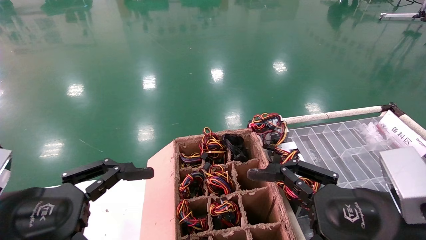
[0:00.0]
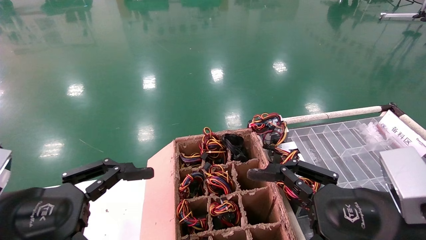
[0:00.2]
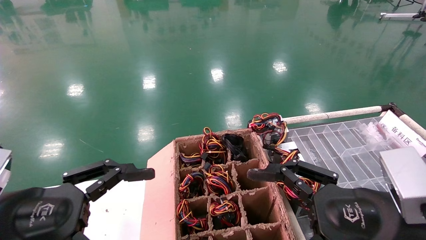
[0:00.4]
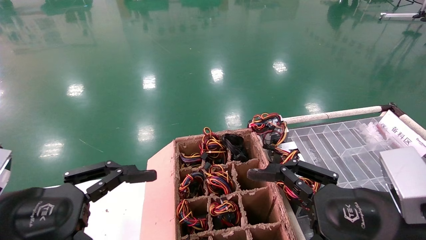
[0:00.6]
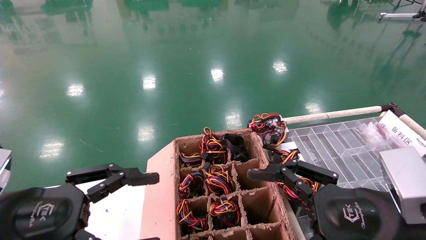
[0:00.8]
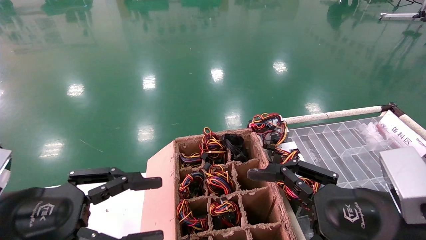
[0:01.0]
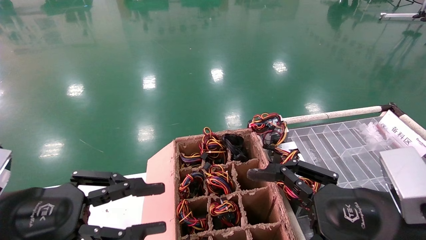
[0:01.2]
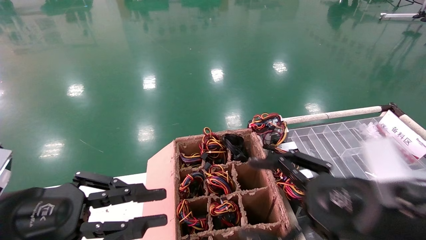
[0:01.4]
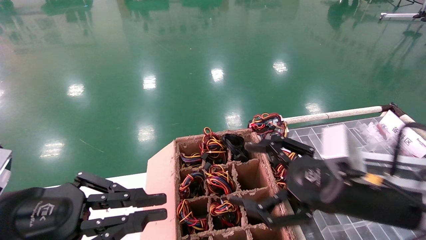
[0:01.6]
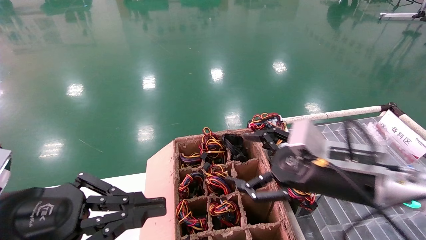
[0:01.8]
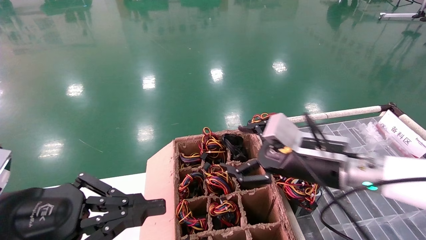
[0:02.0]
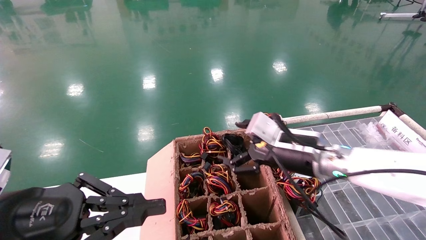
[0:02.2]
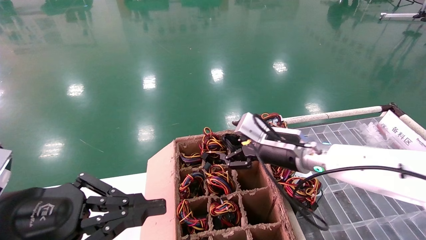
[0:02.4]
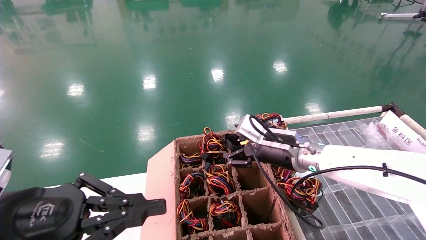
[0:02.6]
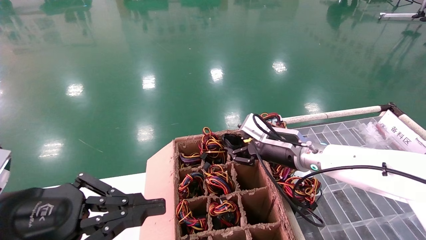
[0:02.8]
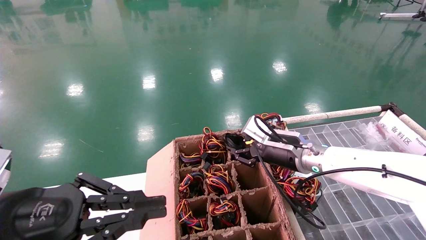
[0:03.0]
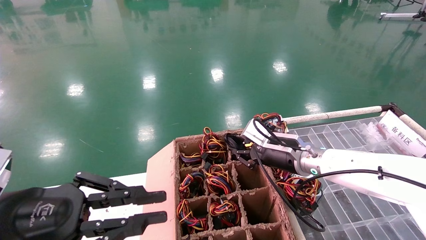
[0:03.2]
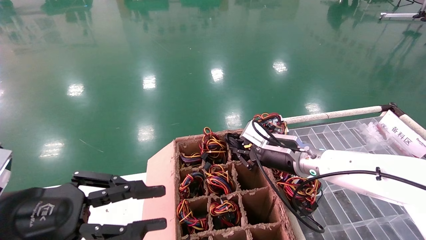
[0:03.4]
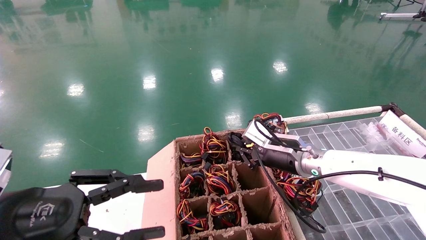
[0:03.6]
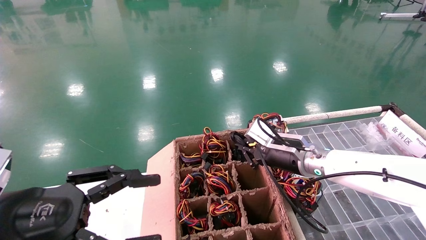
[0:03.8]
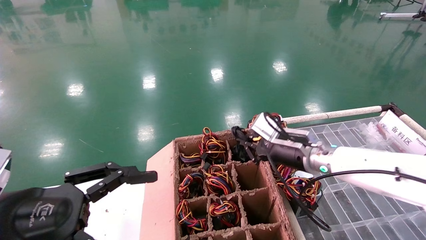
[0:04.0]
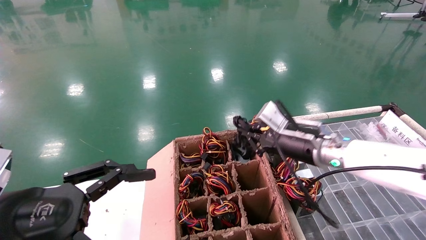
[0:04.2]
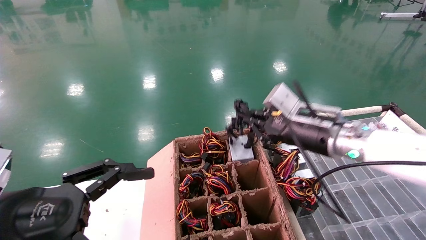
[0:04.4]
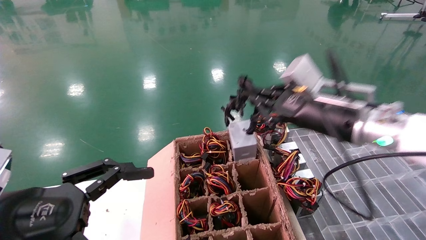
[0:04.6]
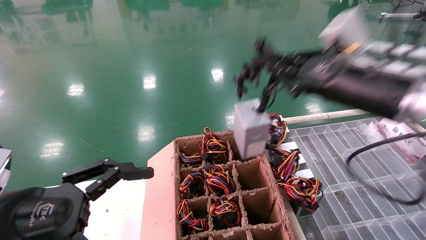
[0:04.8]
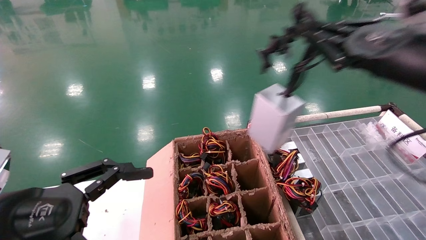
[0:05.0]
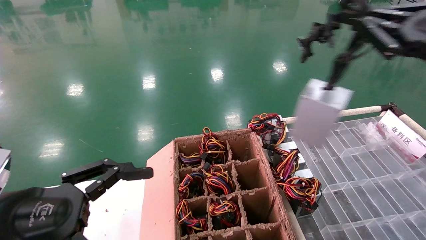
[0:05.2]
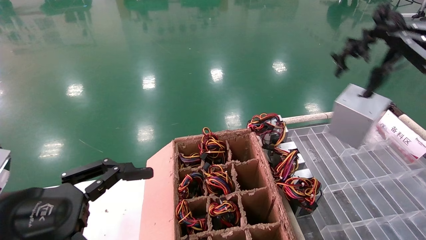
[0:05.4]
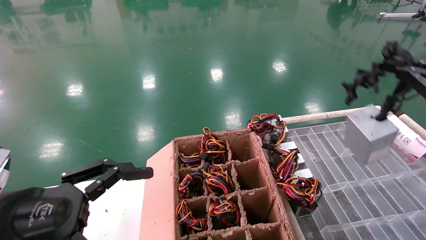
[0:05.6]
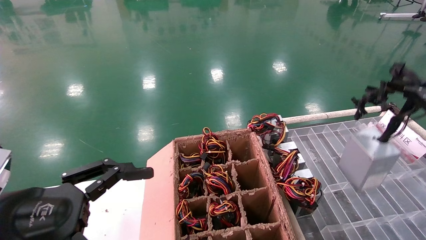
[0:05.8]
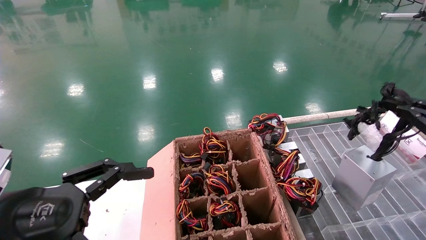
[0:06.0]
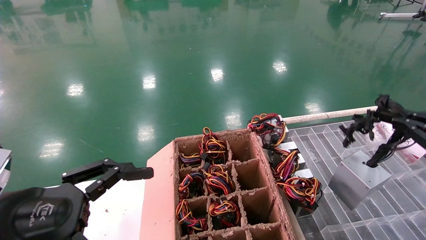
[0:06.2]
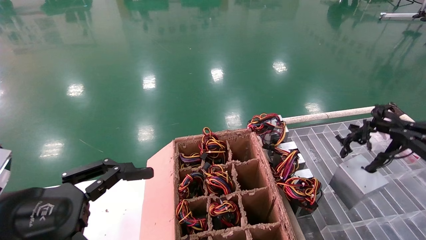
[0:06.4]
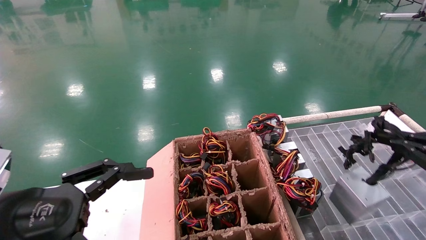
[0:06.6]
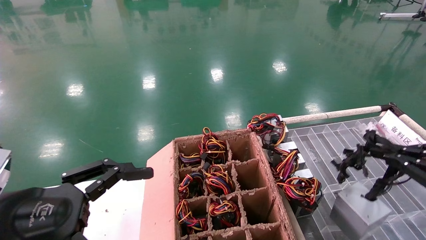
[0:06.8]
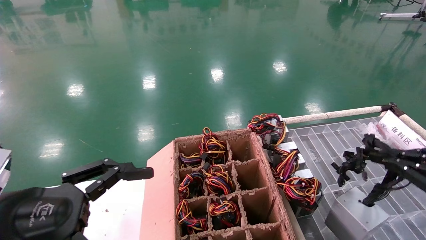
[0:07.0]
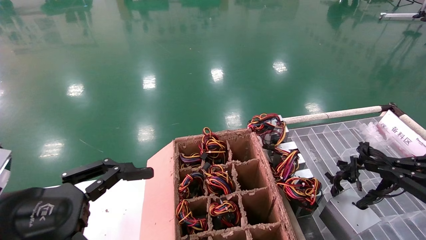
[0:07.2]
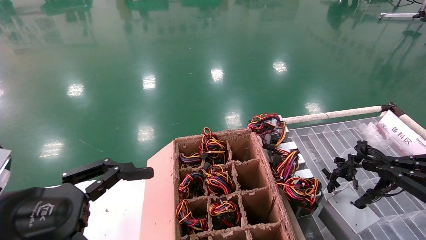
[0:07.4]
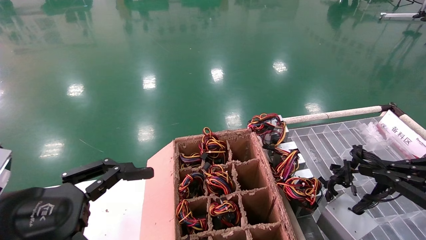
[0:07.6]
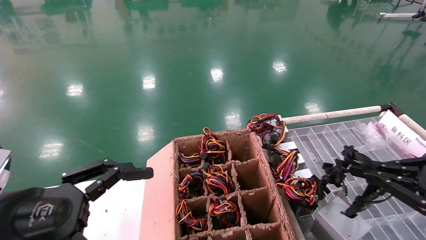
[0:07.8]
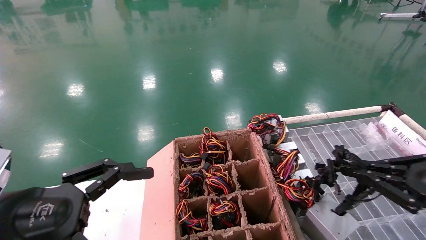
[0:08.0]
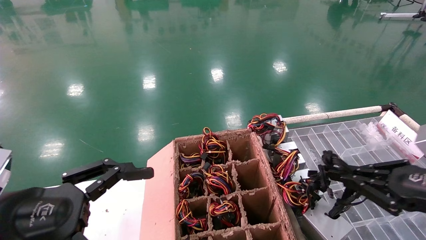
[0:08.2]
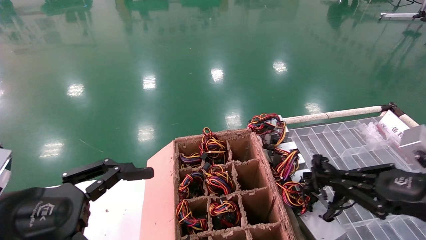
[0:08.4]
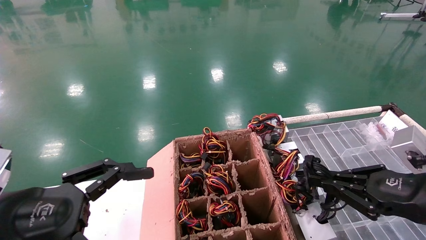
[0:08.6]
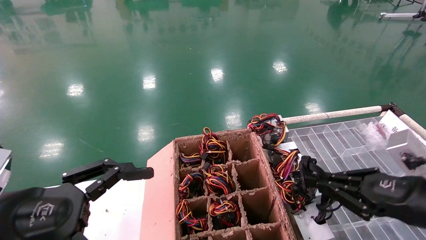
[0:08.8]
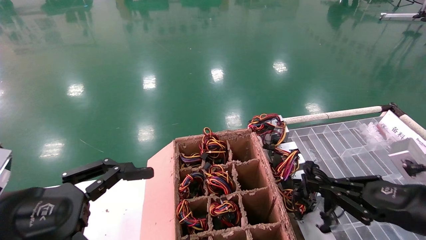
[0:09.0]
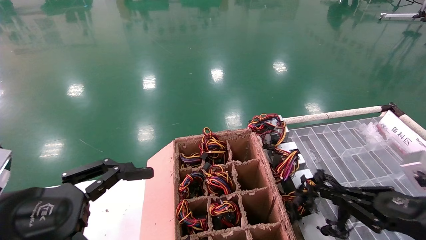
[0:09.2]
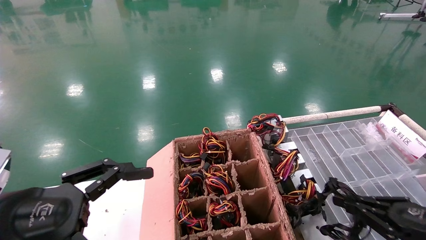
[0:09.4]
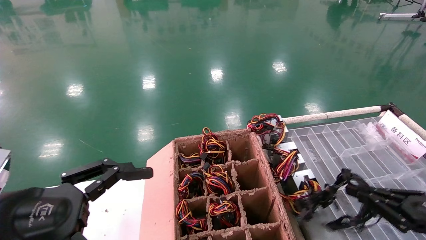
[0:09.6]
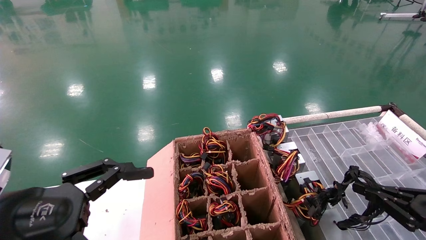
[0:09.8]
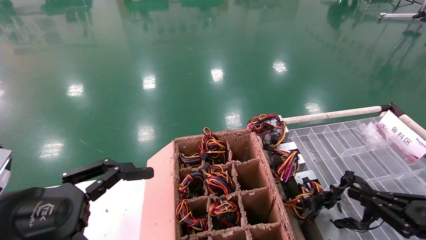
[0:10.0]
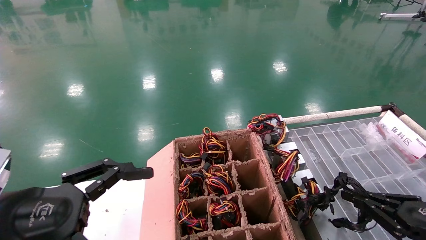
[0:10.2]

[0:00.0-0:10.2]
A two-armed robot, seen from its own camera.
Step, 0:02.2 to 0:04.0: Grab and lift the power supply from the large box.
0:00.0 to 0:01.4: The left gripper closes up.
0:01.4 to 0:03.0: The right gripper is displaced forward by about 20 cm, and closes.
0:03.0 to 0:04.4: The right gripper goes approximately 10 cm upward and backward, and closes up. Meanwhile the left gripper opens up.
0:04.4 to 0:05.8: The right gripper travels to the right and backward by some 25 cm.
0:05.8 to 0:07.2: The right gripper heads downward, covering about 5 cm.
0:07.2 to 0:08.8: The right gripper moves to the left, some 5 cm.
0:08.8 to 0:10.2: The right gripper is displaced downward and to the right by some 10 cm.

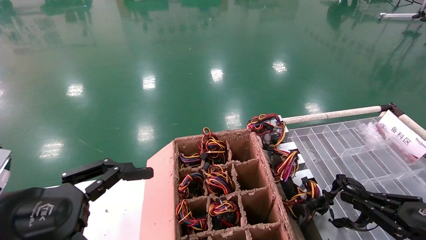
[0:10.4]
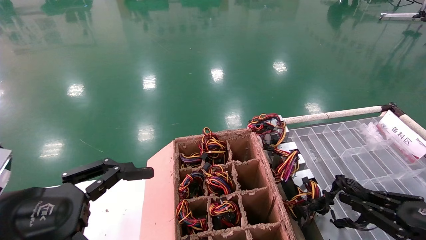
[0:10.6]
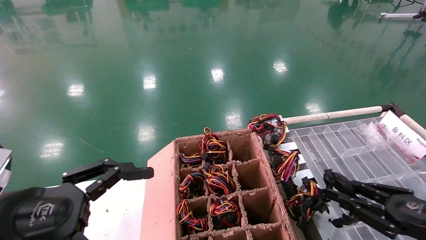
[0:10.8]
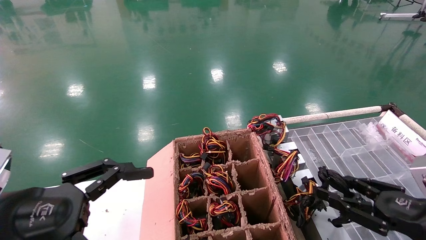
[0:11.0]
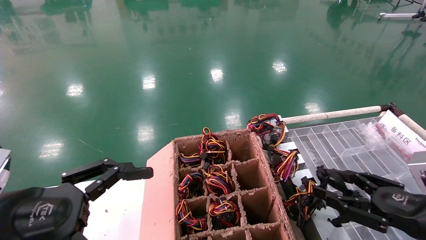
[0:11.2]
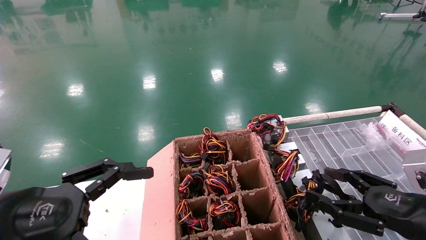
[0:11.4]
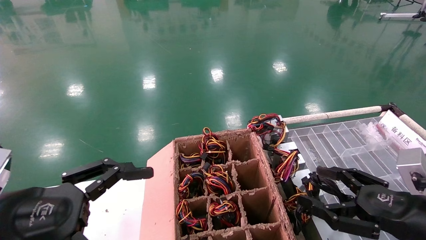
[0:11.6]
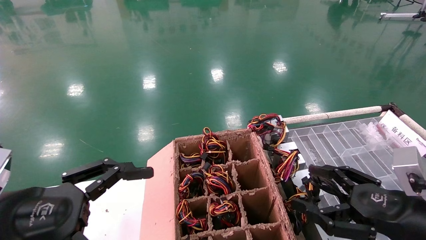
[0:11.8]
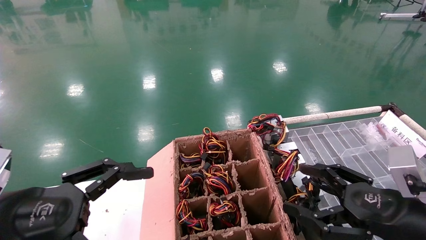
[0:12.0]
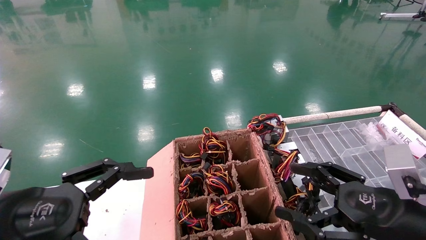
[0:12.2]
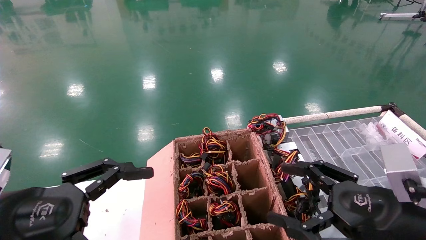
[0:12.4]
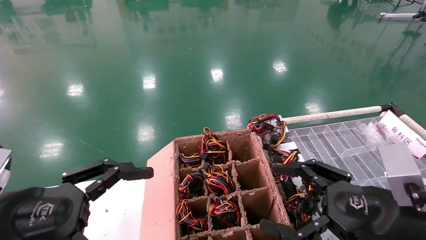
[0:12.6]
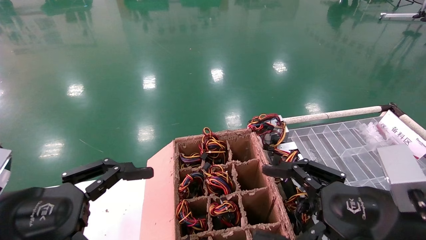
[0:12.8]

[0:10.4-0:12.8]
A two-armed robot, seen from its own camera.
0:10.4 to 0:11.6: The right gripper is displaced to the left by about 5 cm, and opens its fingers.
0:11.6 to 0:12.8: The right gripper goes about 5 cm to the left.

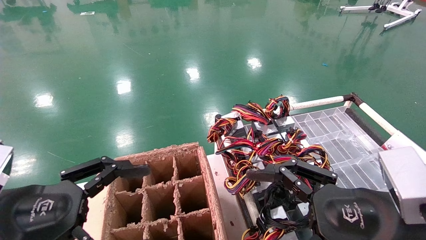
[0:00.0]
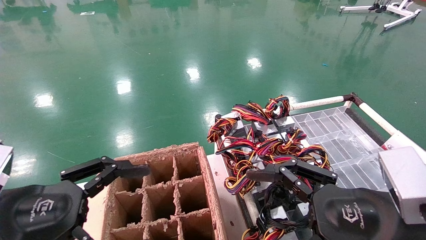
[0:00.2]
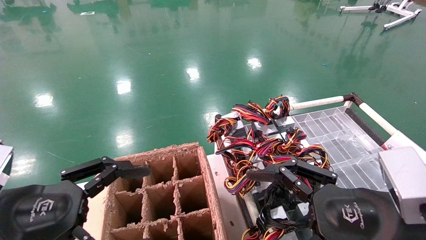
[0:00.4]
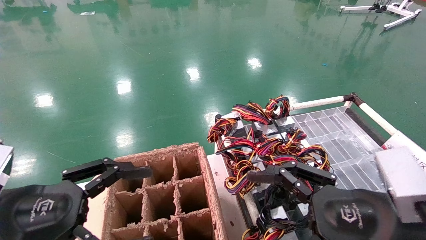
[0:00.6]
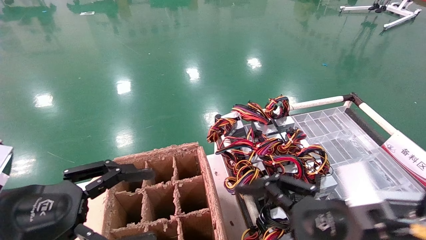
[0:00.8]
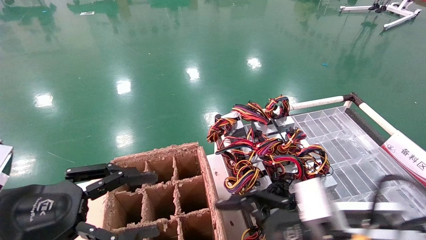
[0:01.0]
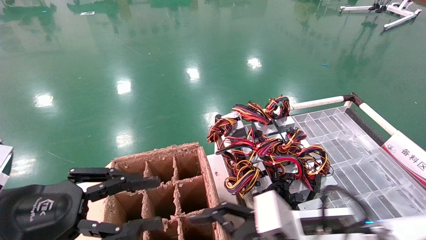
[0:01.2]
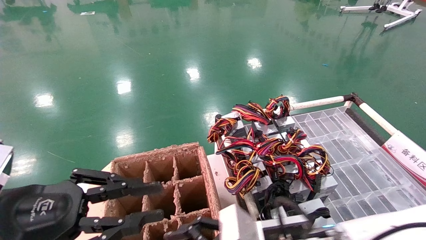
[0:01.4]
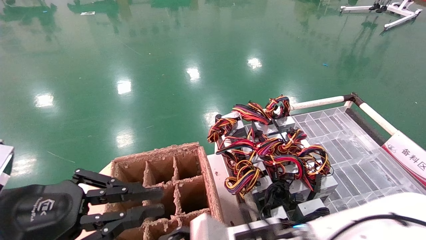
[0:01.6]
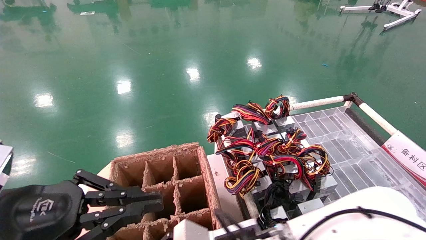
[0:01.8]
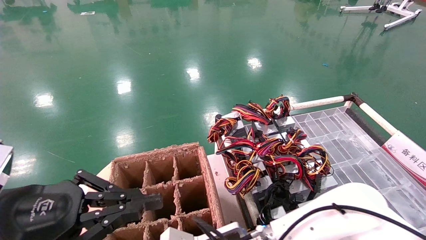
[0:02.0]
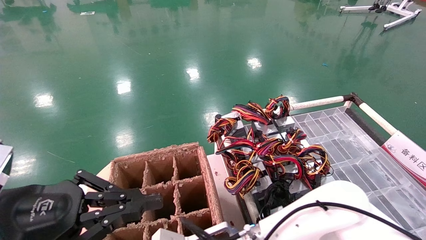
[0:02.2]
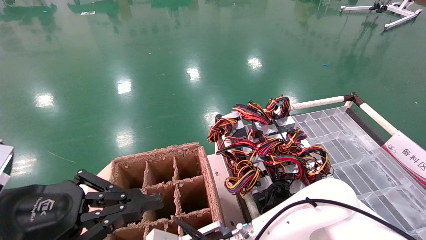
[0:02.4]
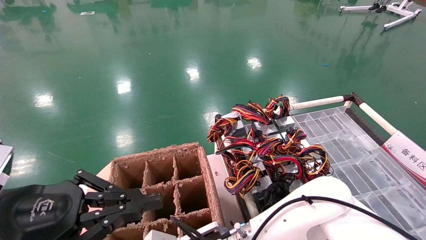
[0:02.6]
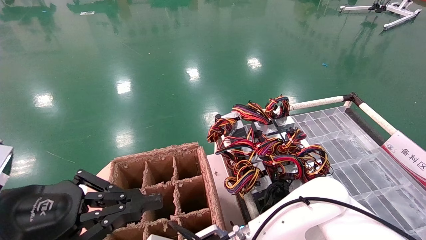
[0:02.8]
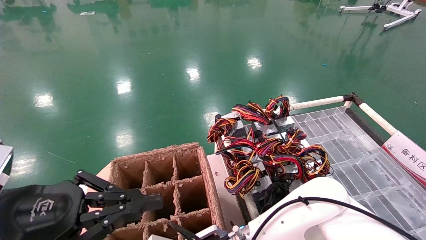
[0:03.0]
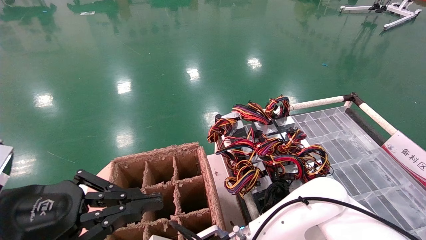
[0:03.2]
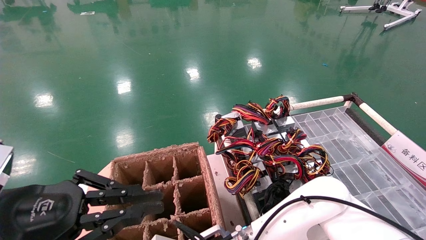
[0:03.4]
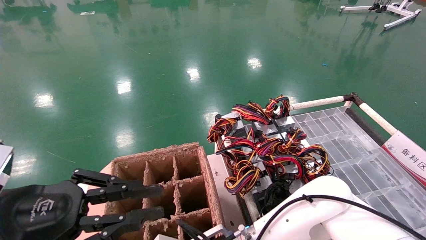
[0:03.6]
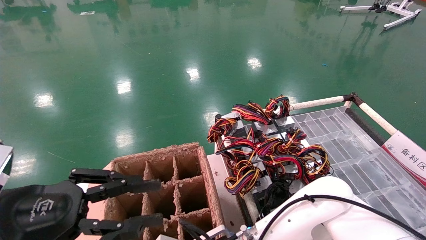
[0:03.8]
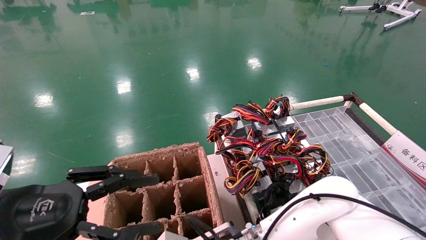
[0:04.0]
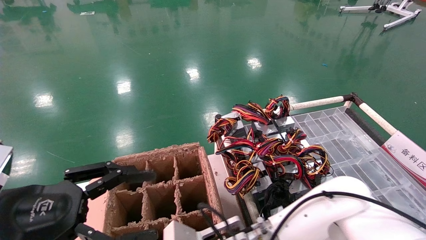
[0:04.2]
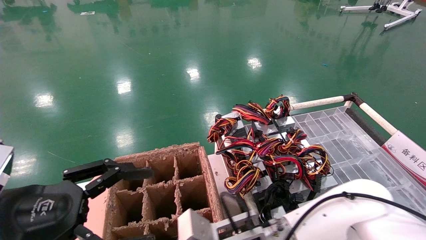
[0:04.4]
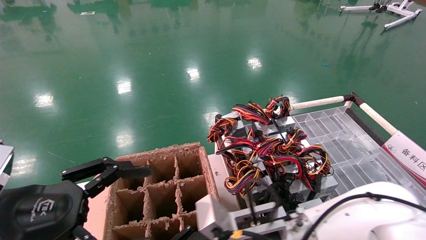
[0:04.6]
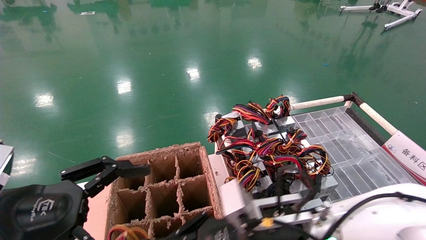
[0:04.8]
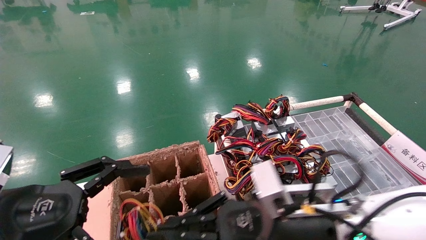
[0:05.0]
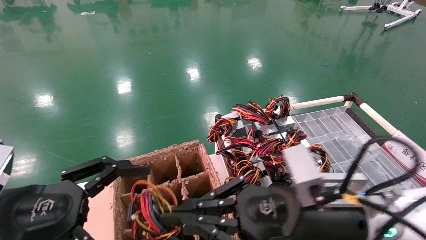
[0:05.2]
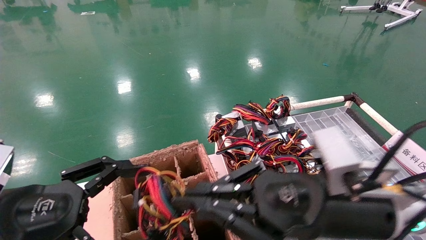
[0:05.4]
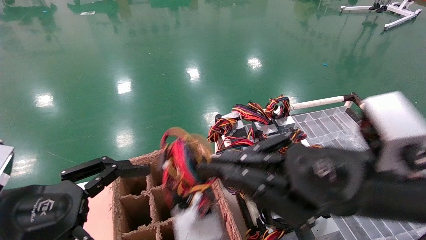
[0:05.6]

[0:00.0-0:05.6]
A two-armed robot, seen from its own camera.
Step, 0:00.8 to 0:03.6: Grab and lift the power supply from the large box.
0:00.0 to 0:01.4: The right gripper moves to the left, downward and forward, roughly 15 cm; the left gripper closes its fingers.
0:01.4 to 0:02.8: The left gripper closes, while the right gripper shifts approximately 15 cm to the left, downward and forward, and closes.
0:02.8 to 0:04.2: The left gripper opens, while the right gripper closes.
0:04.2 to 0:05.6: The right gripper moves to the right, upward and backward, approximately 25 cm. Meanwhile the left gripper opens up.
